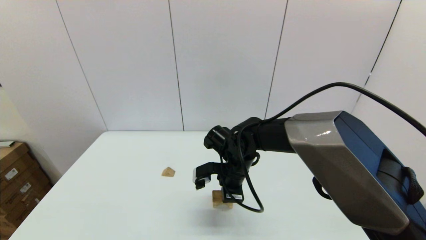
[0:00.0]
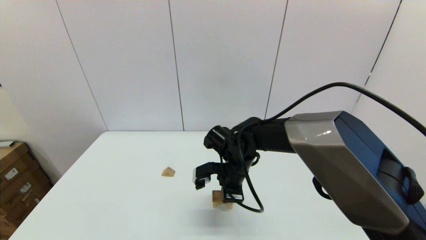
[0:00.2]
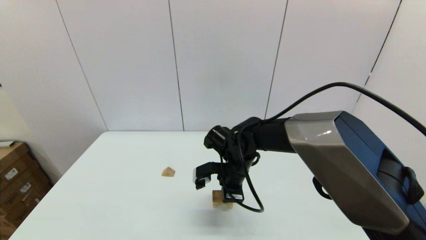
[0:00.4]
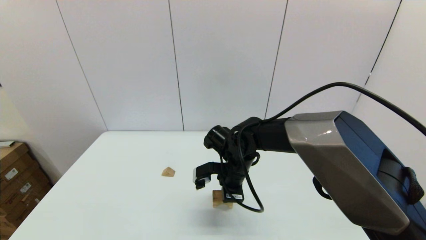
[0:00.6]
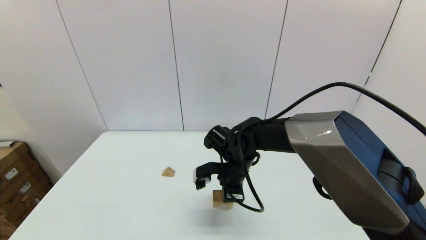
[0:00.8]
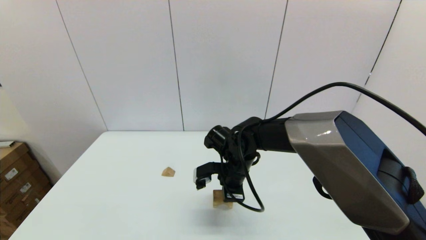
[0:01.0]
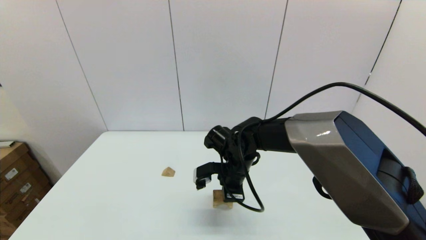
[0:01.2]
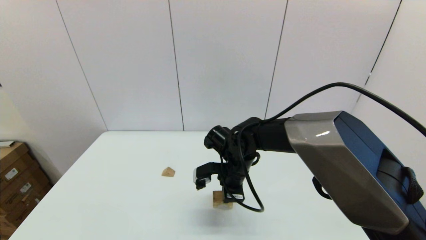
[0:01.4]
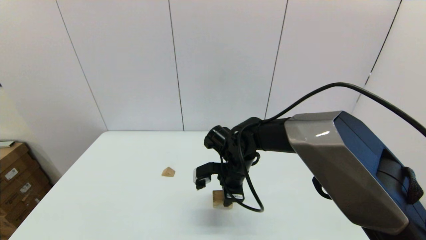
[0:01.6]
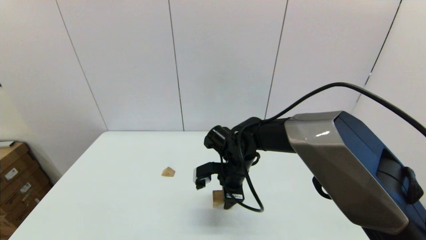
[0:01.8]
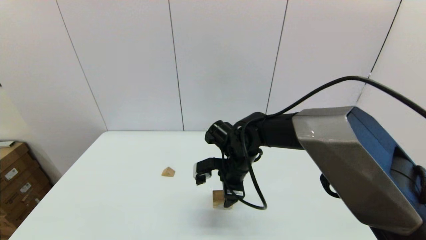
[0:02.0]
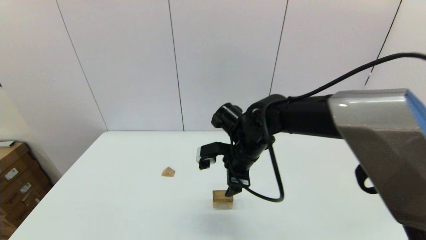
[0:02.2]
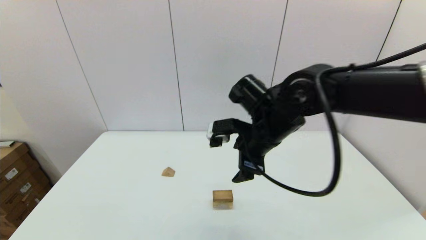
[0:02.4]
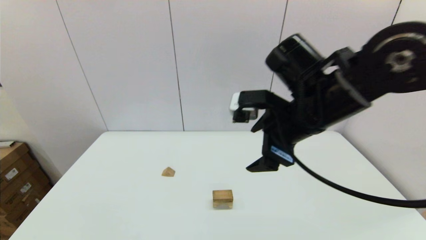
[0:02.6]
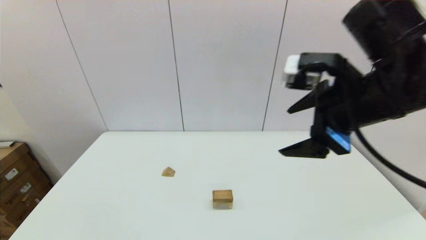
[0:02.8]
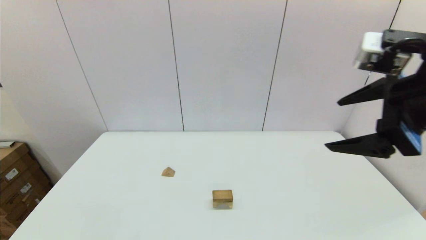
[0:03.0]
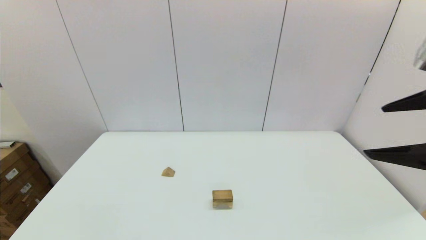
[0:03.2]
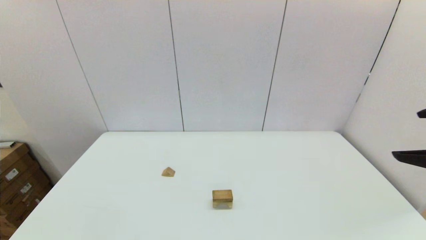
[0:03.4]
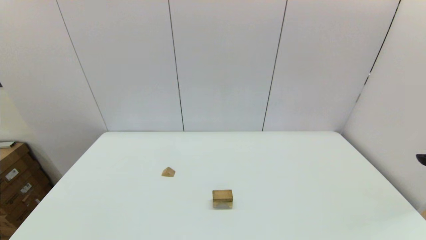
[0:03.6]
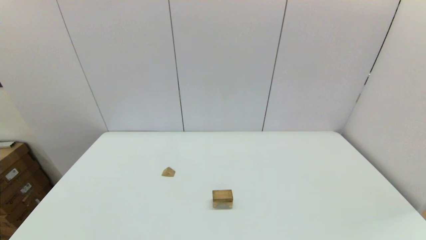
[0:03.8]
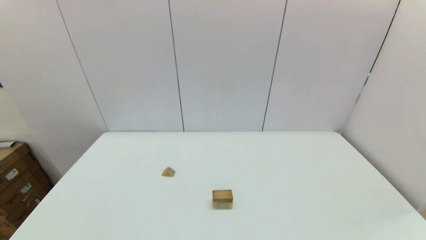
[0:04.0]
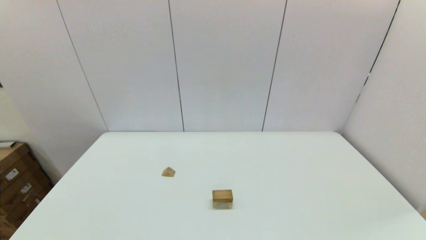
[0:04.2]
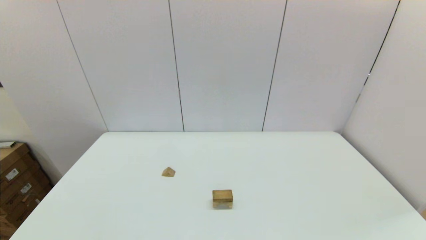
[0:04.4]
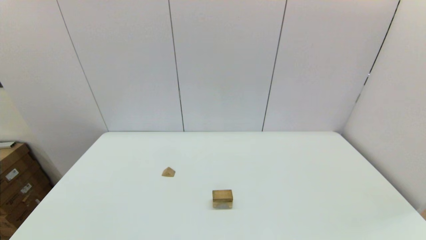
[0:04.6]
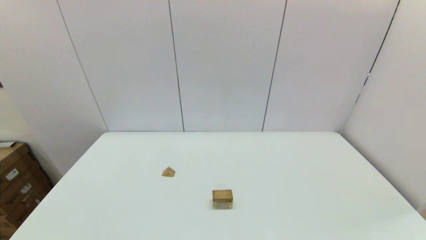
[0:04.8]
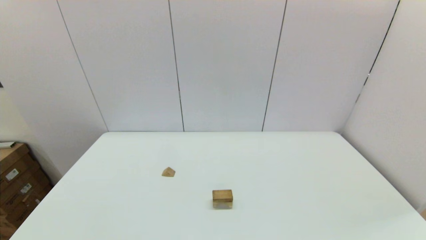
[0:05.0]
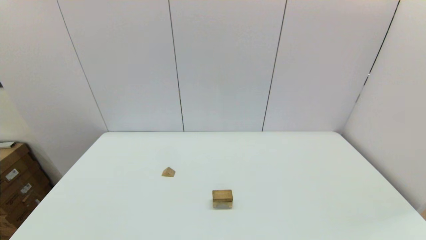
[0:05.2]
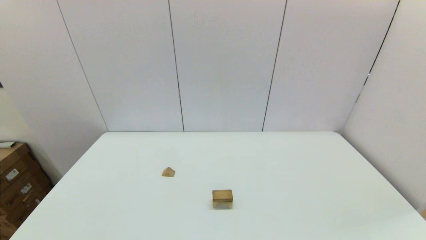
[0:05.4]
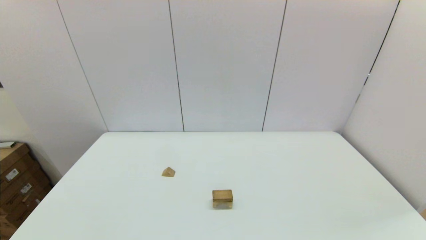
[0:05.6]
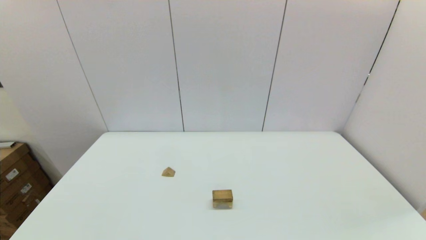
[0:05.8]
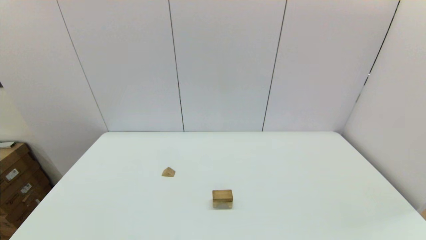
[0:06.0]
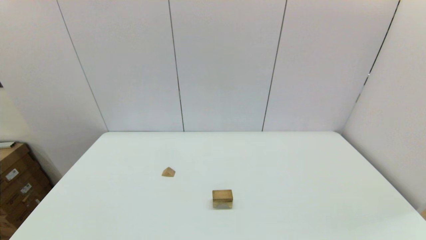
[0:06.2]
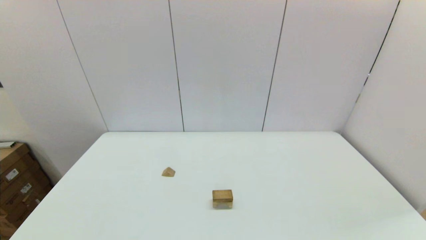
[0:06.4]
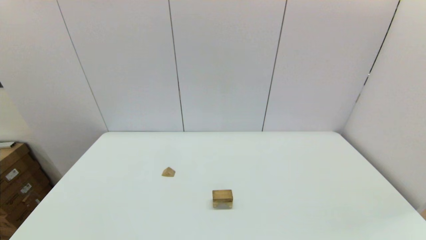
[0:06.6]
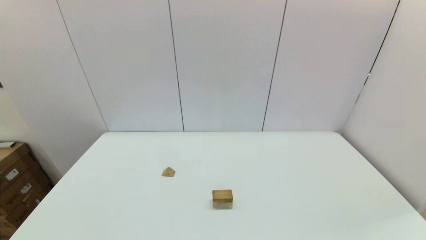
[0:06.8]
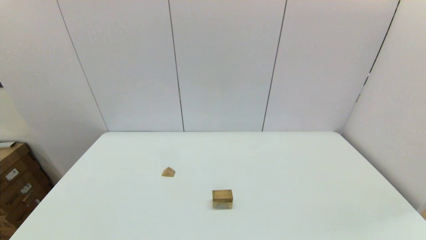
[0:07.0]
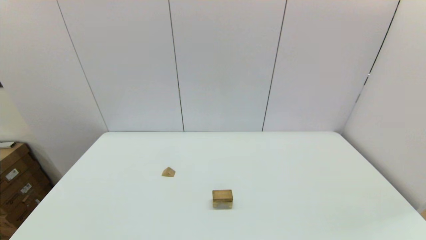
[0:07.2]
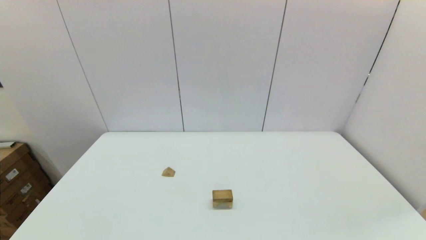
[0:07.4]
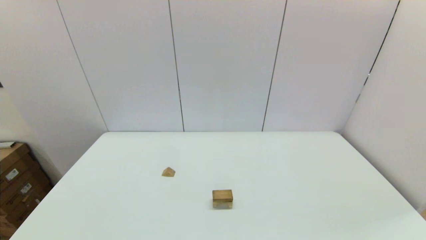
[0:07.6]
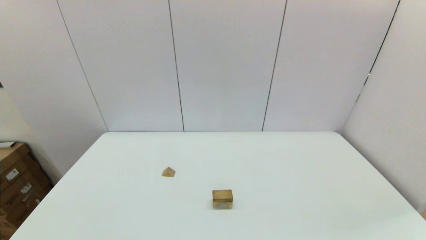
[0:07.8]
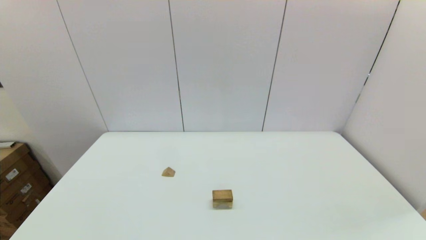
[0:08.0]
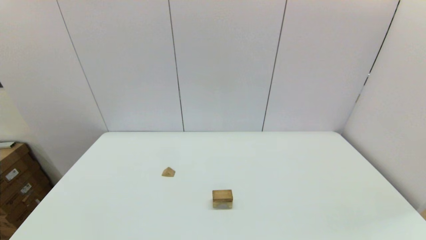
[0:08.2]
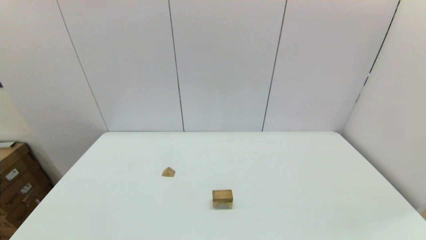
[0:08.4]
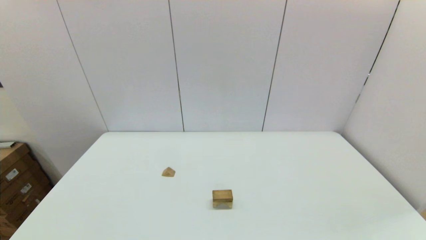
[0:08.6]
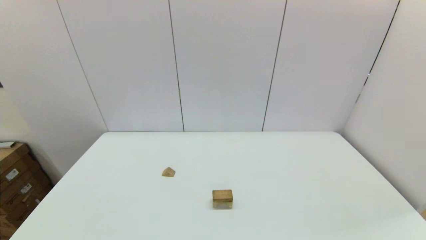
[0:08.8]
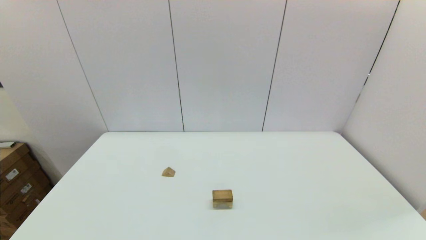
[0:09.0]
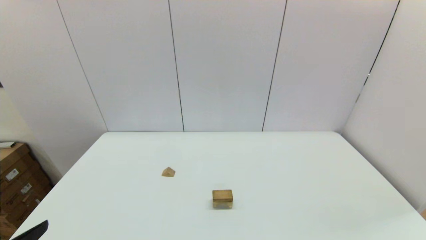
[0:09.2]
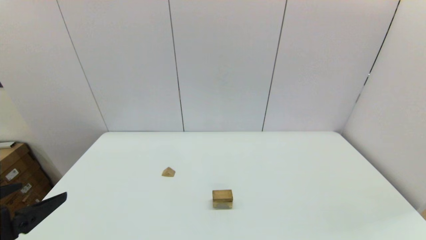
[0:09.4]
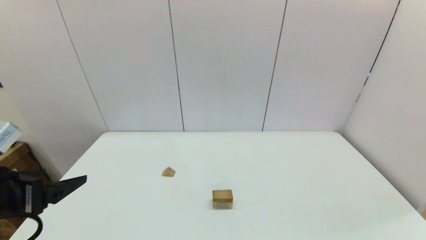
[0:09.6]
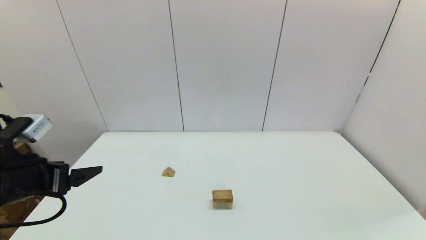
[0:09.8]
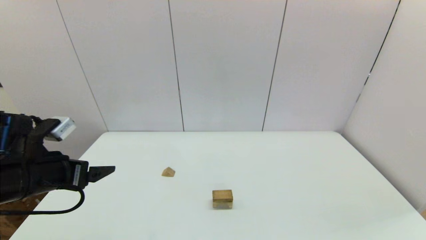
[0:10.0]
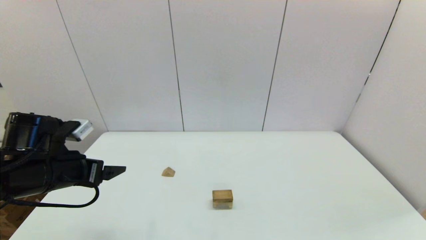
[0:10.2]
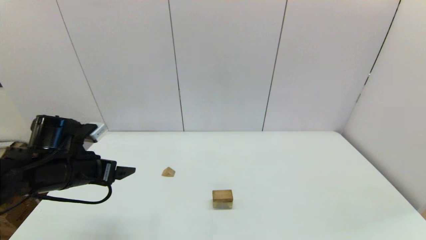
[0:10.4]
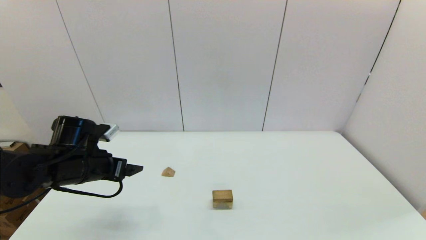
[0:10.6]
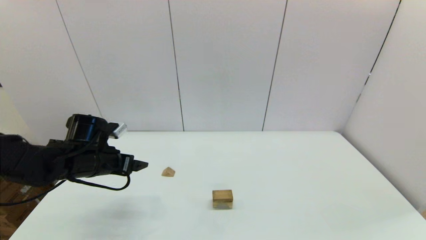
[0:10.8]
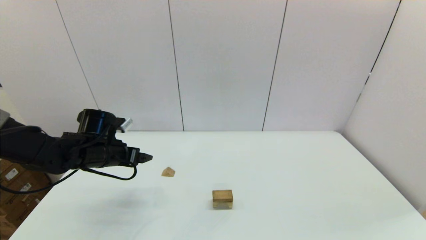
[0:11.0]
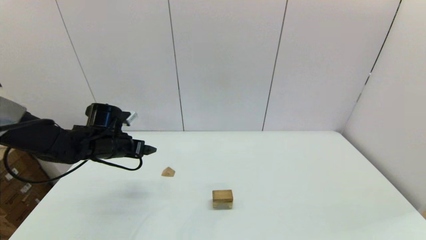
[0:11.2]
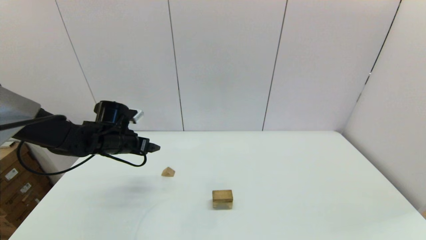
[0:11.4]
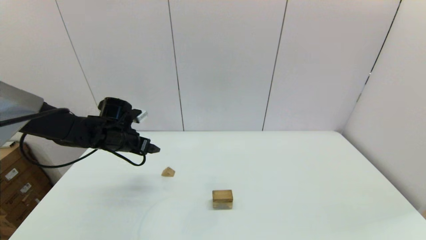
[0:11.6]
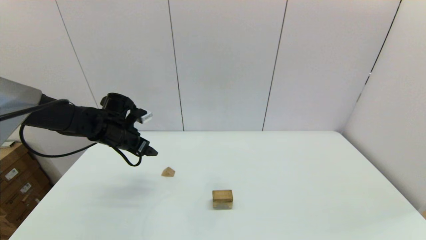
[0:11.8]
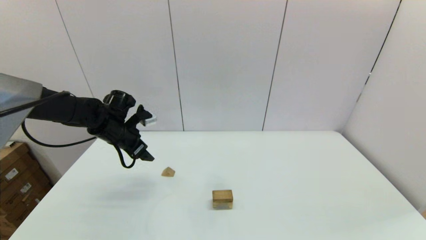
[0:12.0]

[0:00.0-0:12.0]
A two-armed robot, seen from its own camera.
Task of the whole recording: place the arched building blocks in the center of the table, set up the rectangular building blocks, and then set up the triangular building blocks.
0:01.6 to 0:03.0: The right gripper moves upward, to the right and backward, some 35 cm, and opens up.
0:03.0 to 0:04.4: The right gripper is displaced backward by approximately 20 cm.
0:09.0 to 0:10.4: The left gripper goes roughly 25 cm forward.
0:10.4 to 0:12.0: The left gripper moves forward, some 15 cm.

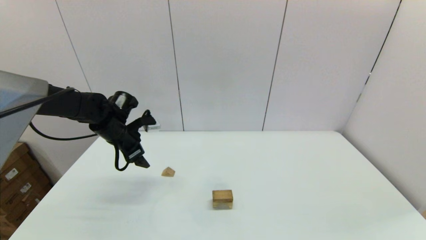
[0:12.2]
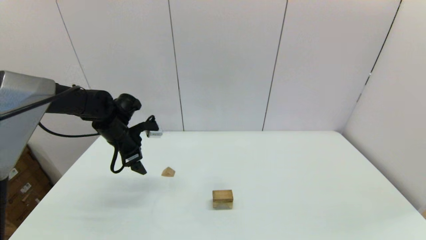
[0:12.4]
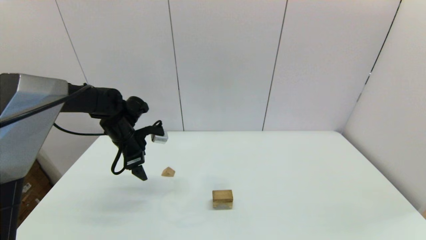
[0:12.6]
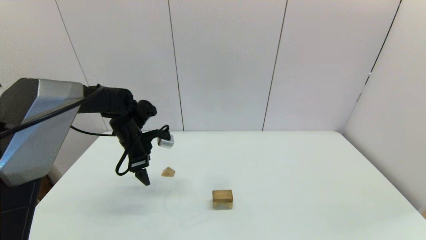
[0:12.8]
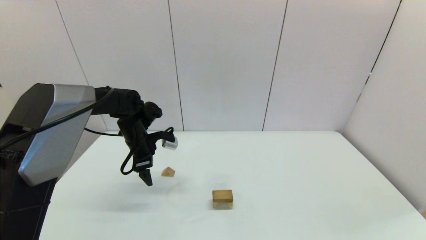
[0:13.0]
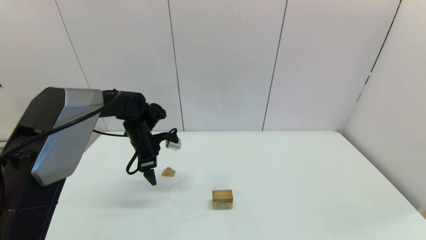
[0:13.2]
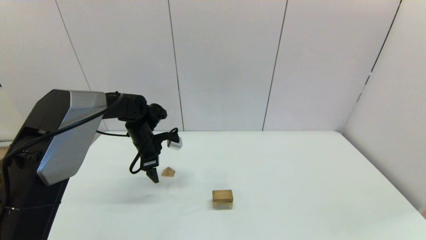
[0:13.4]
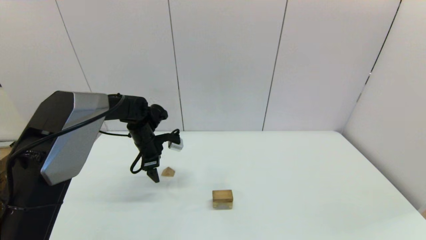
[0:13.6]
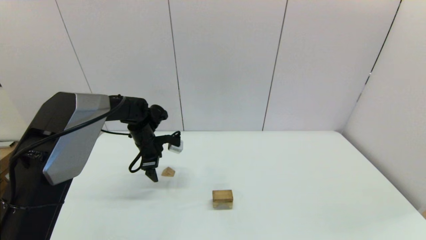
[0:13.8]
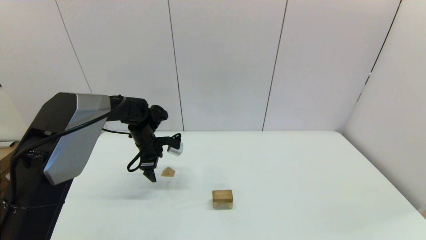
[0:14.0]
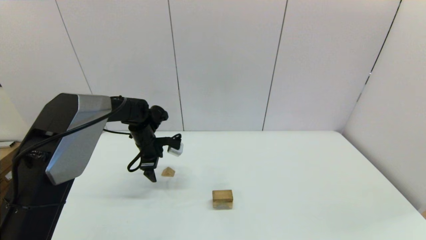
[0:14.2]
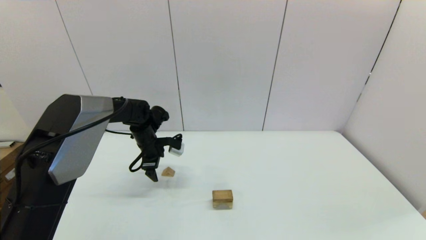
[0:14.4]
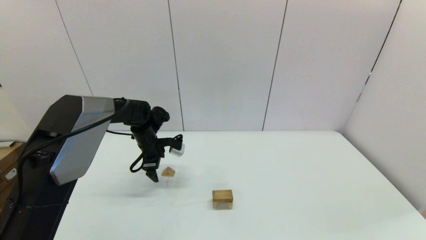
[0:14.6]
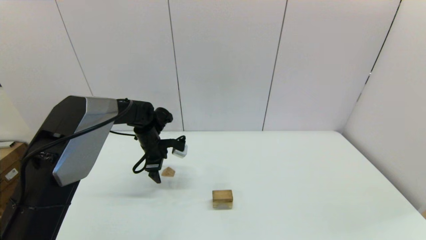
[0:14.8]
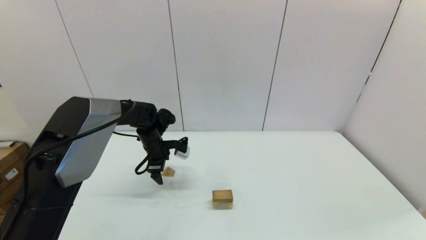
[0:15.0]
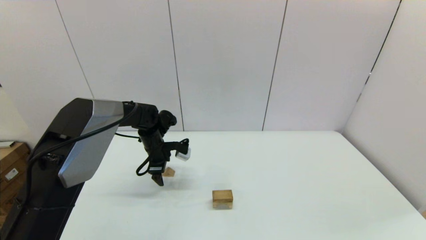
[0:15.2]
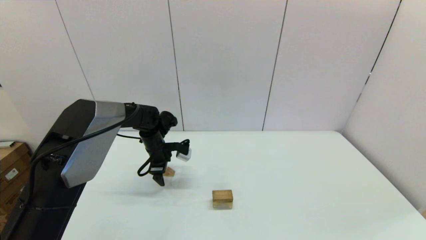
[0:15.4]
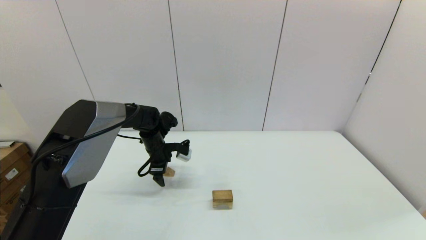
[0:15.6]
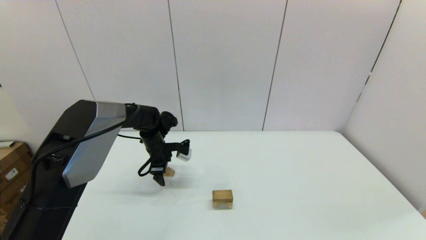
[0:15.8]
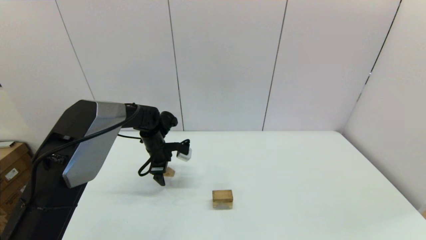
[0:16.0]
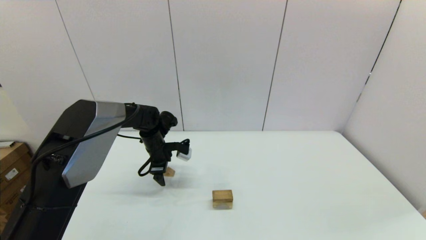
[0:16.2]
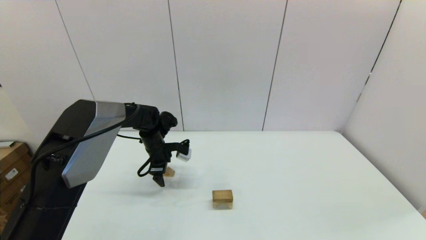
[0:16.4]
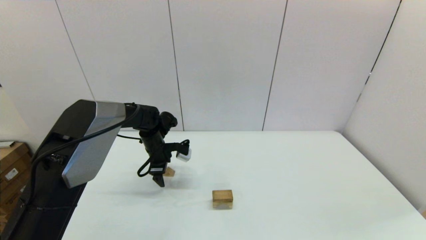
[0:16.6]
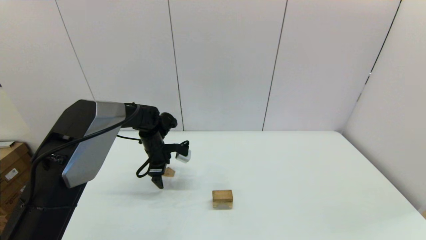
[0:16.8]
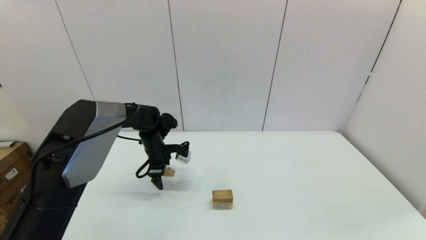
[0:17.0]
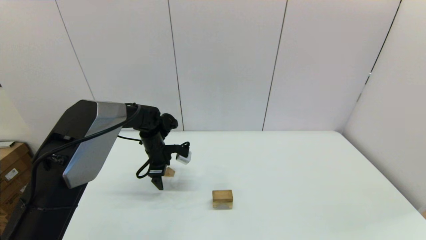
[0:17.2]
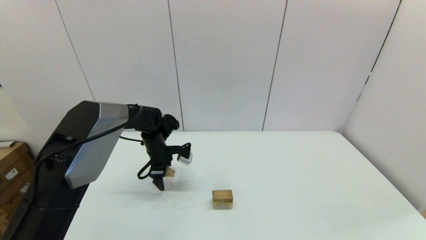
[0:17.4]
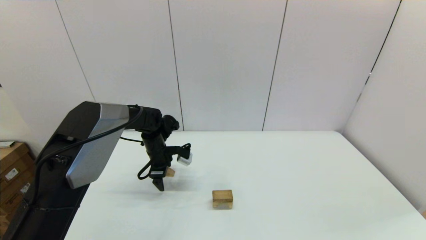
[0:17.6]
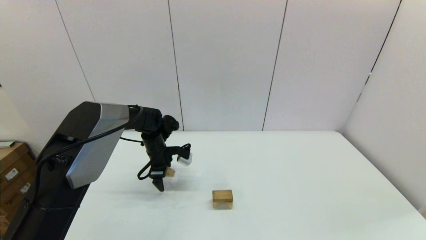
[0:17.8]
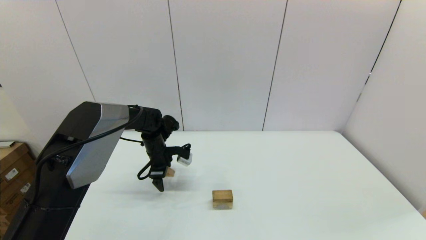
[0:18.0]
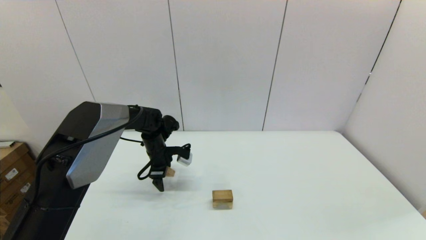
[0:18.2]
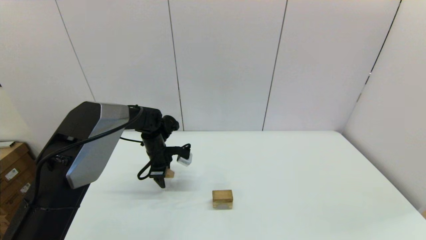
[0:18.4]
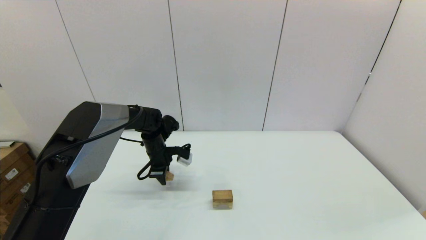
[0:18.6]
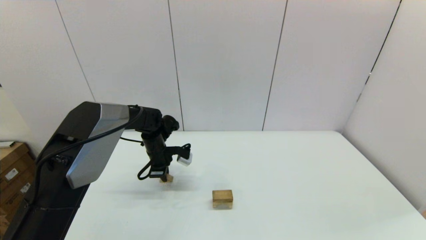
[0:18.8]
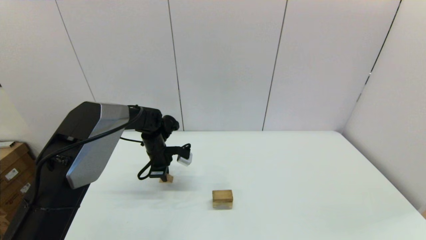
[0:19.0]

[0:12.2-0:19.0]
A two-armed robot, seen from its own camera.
Task of the whole recording: place the arched building blocks in the center of the table, set up the rectangular building blocks, and then set up the triangular building blocks.
Step, 0:12.2 to 0:18.8: Grasp the triangle-shaped block with the left gripper.
0:12.2 to 0:13.6: The left gripper goes some 5 cm to the right.
0:13.6 to 0:15.0: The grippers make only small movements.
0:15.0 to 0:16.2: Both grippers stay about where they are.
0:16.2 to 0:17.6: The two grippers keep their place.
